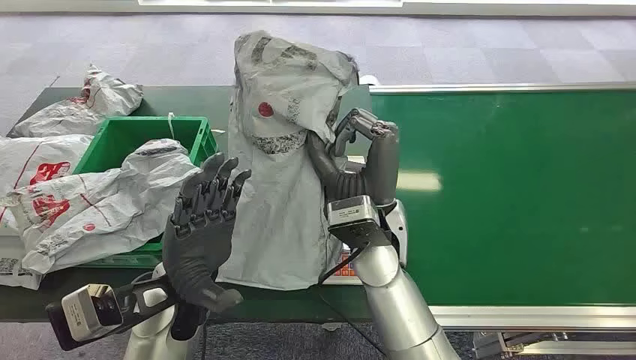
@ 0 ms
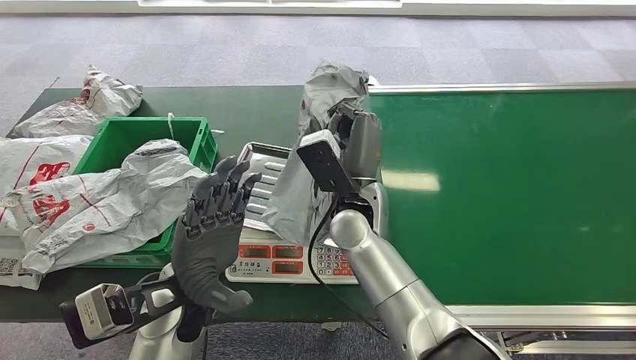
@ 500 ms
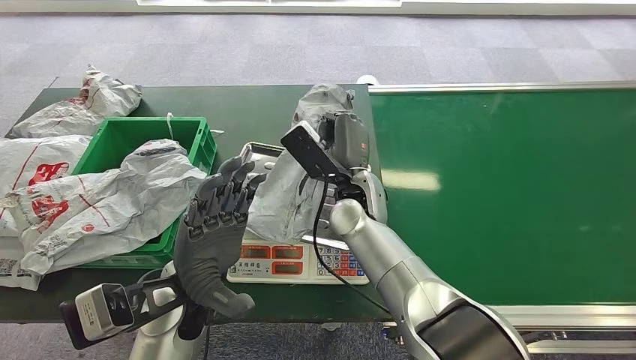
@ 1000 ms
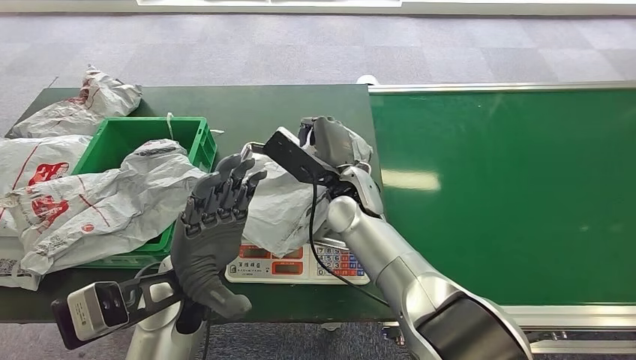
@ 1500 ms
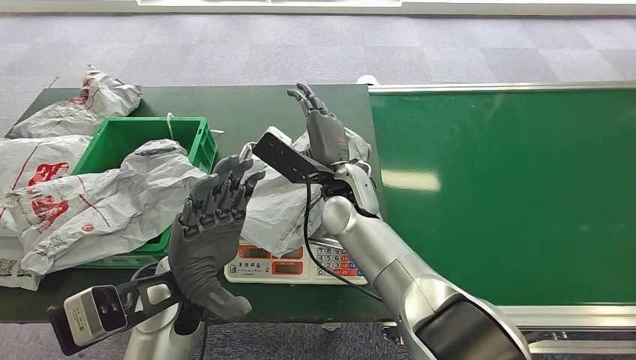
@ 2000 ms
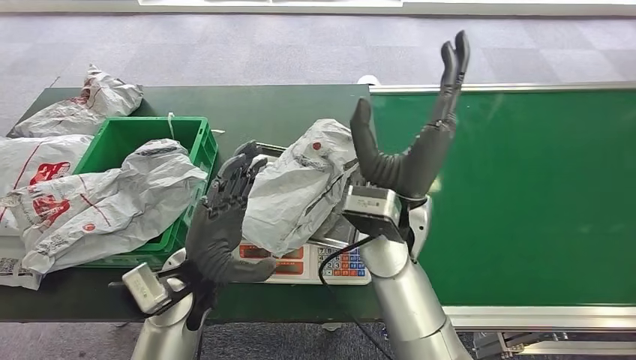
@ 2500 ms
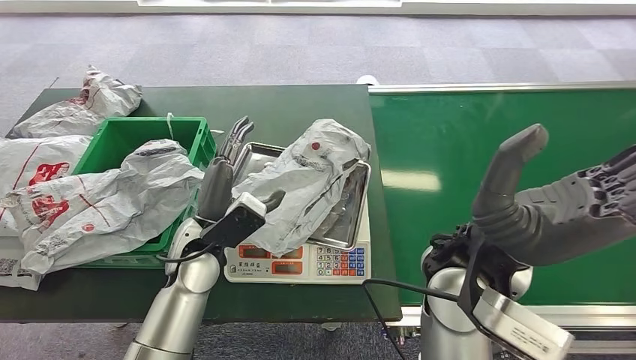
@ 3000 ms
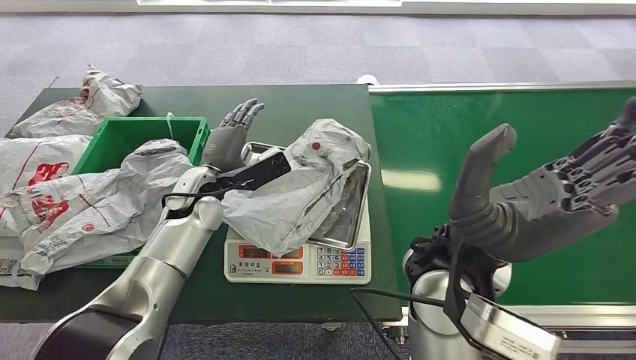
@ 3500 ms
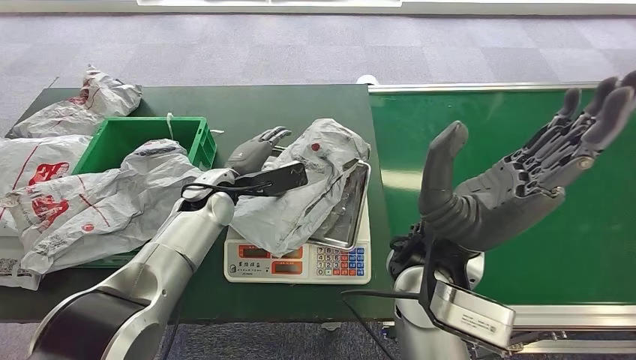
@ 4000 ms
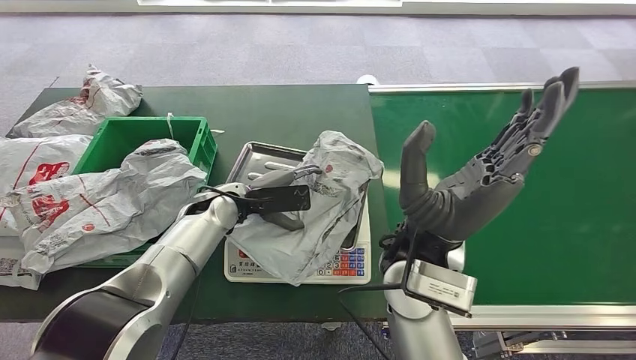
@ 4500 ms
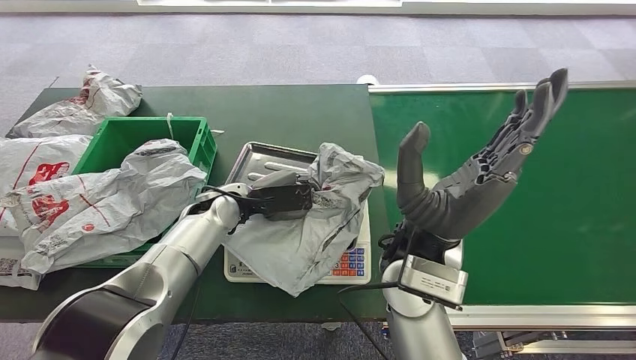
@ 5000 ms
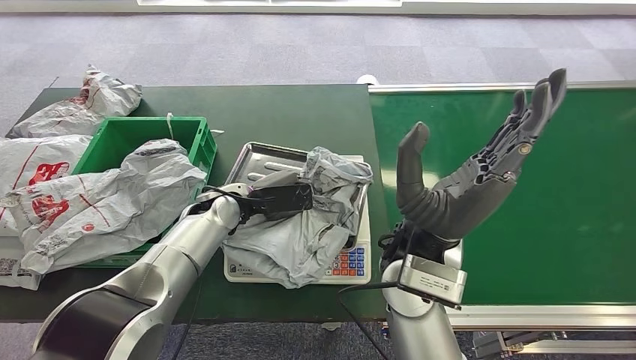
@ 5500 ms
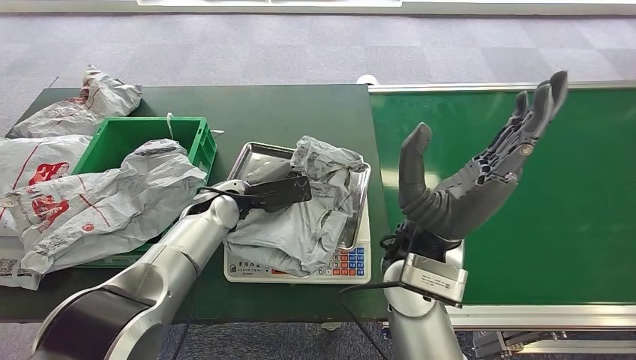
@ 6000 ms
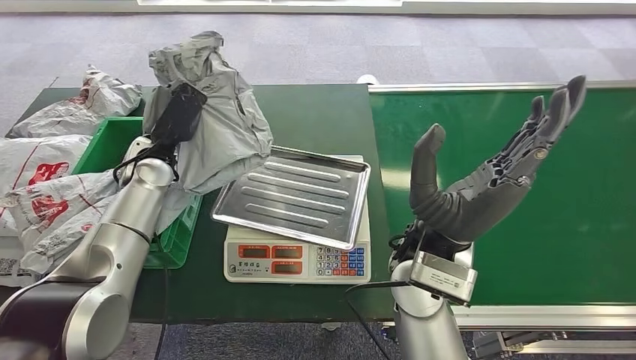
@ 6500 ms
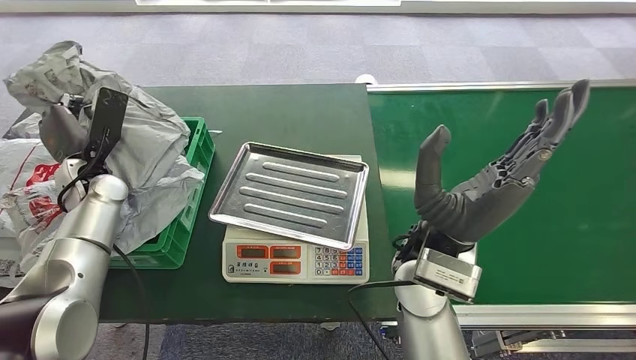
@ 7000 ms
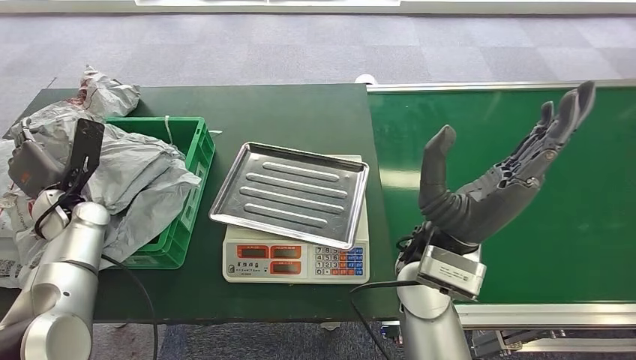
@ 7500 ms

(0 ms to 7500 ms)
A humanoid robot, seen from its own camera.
Step, 500 ms - 1500 ms: Place the package onto the inbound machine.
Step, 2000 ms - 6000 ms: Pick up the package from the inbound machine.
Step, 7000 ms - 7500 ms: Place the package into the parcel locker.

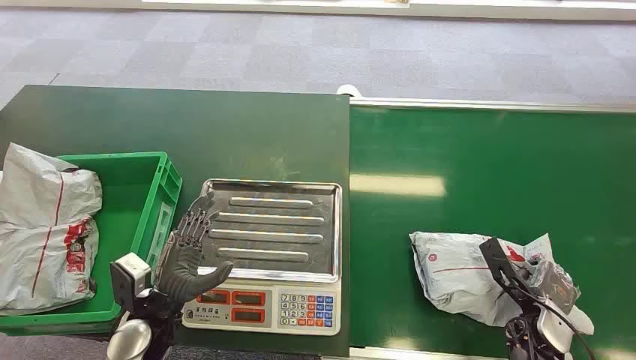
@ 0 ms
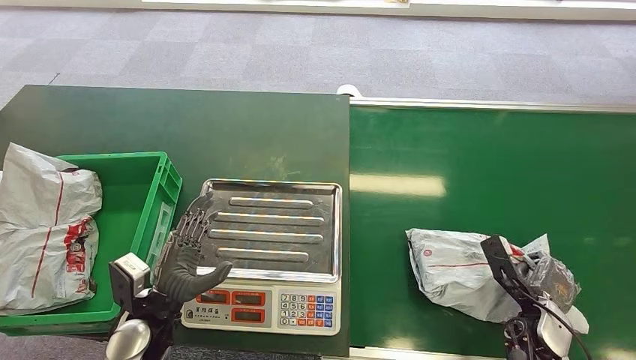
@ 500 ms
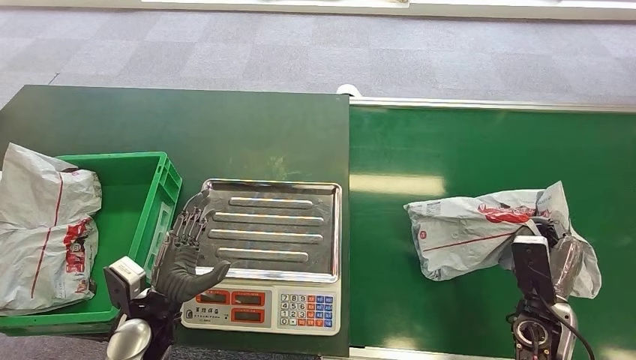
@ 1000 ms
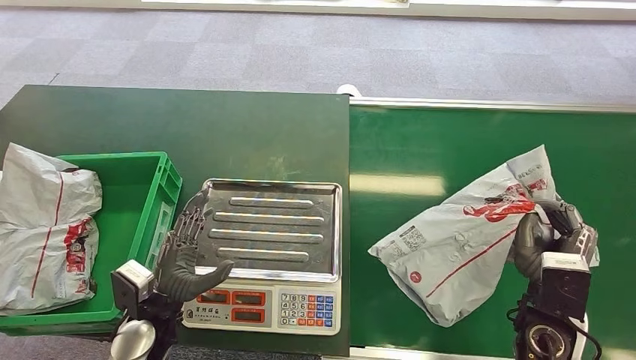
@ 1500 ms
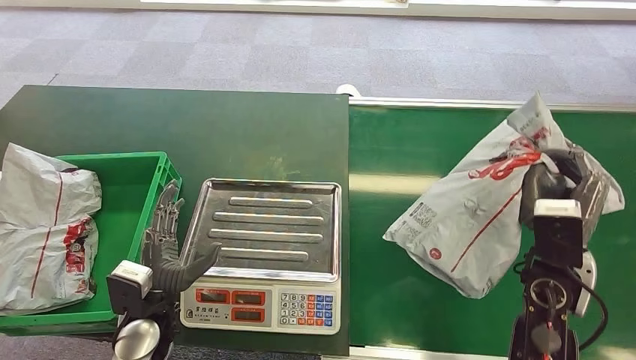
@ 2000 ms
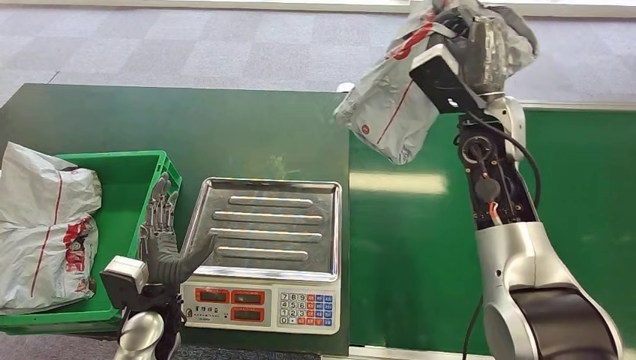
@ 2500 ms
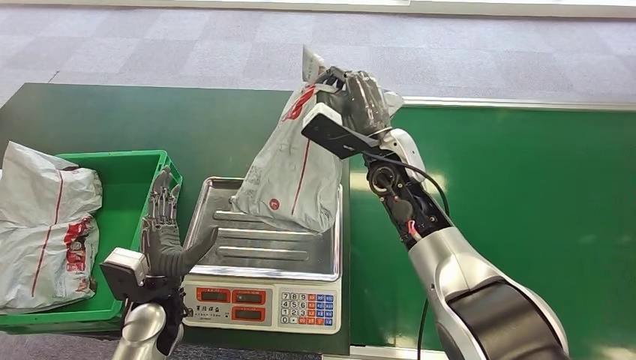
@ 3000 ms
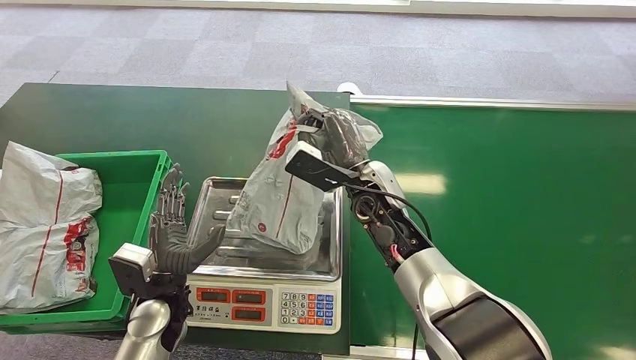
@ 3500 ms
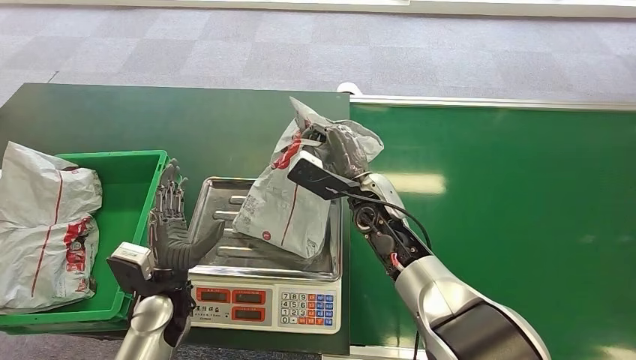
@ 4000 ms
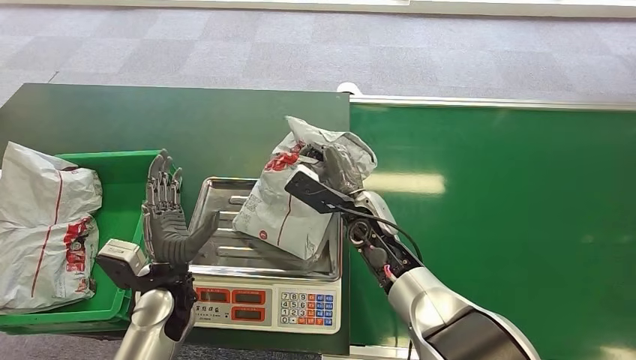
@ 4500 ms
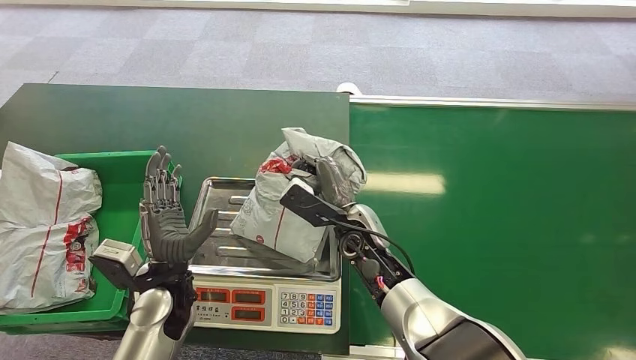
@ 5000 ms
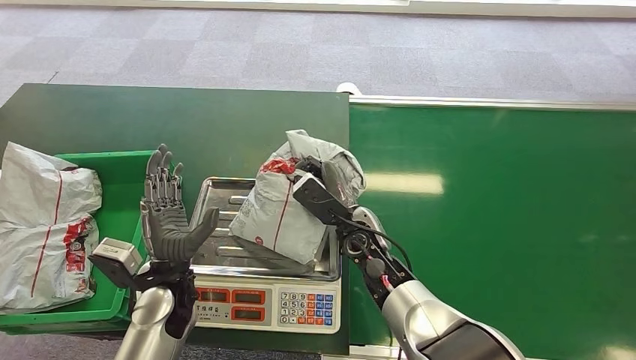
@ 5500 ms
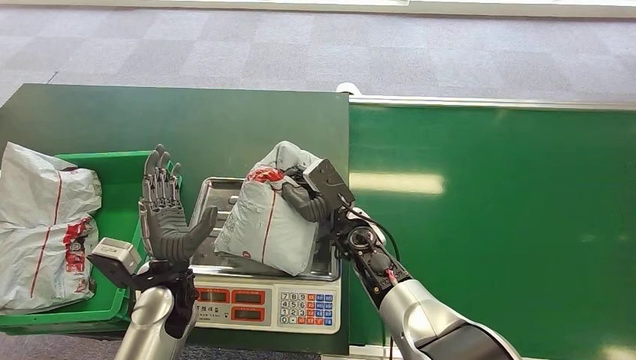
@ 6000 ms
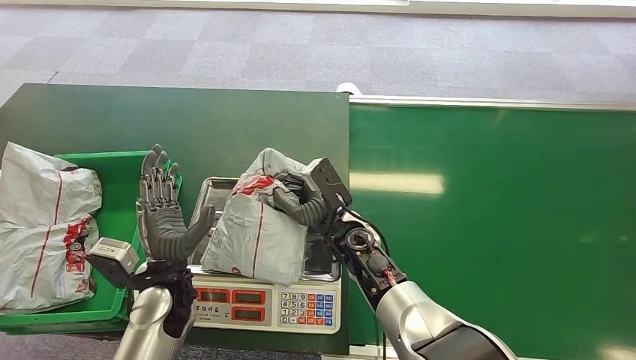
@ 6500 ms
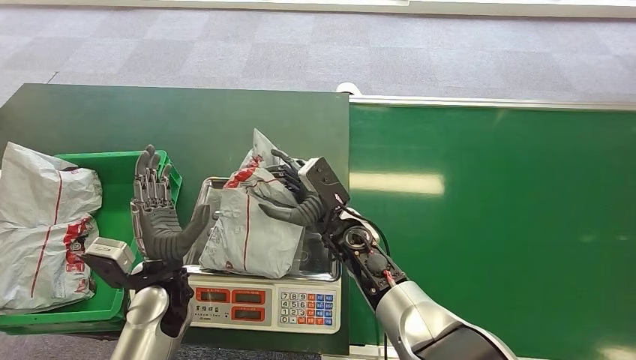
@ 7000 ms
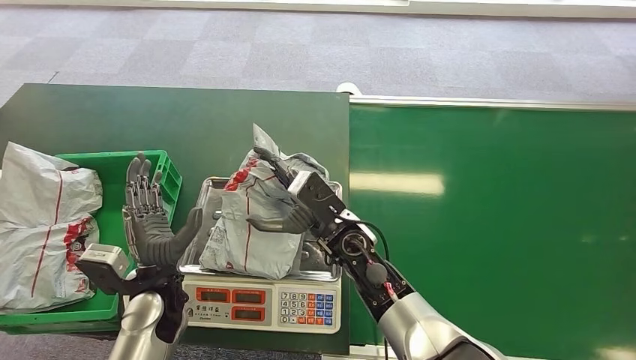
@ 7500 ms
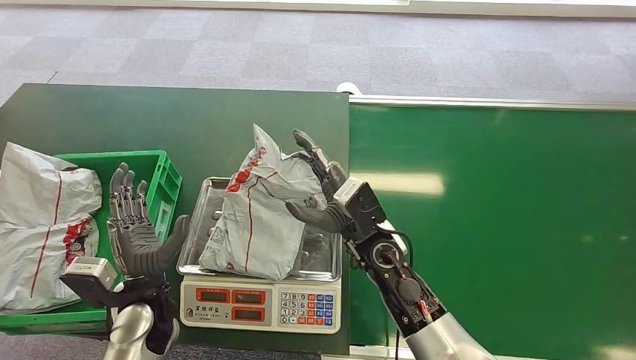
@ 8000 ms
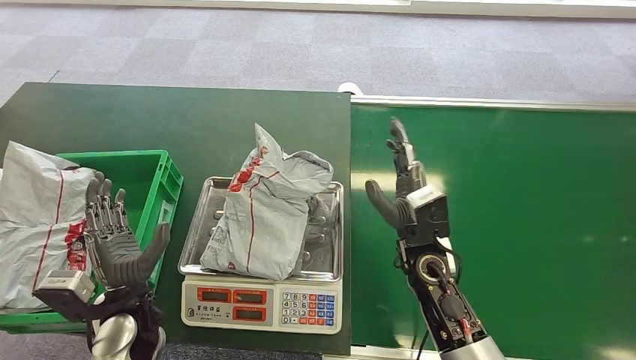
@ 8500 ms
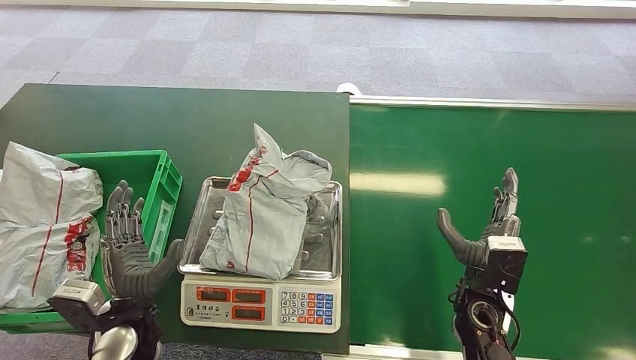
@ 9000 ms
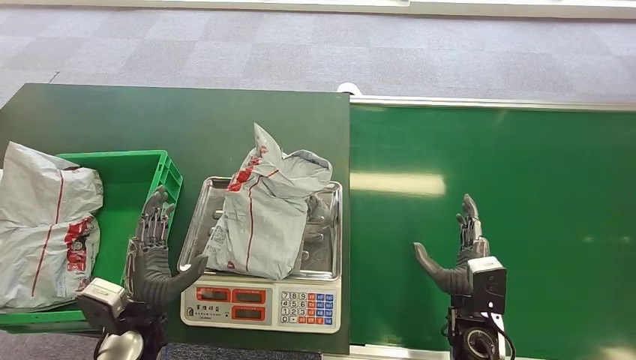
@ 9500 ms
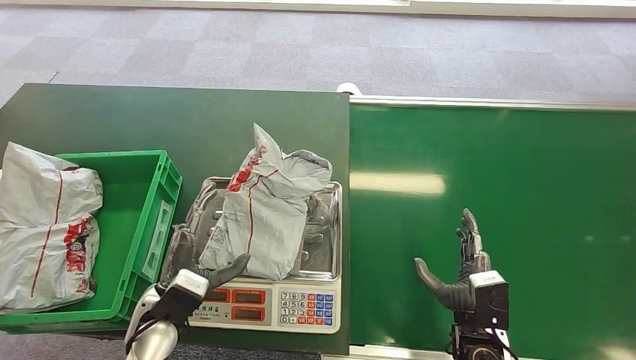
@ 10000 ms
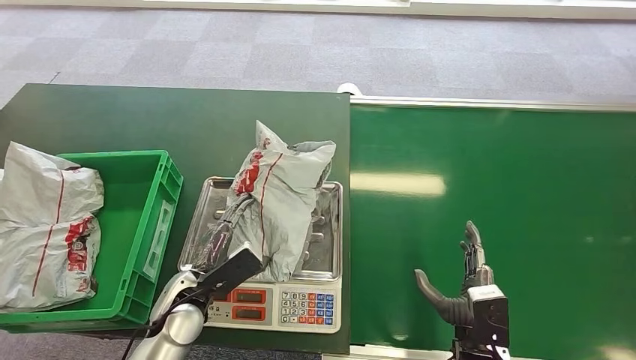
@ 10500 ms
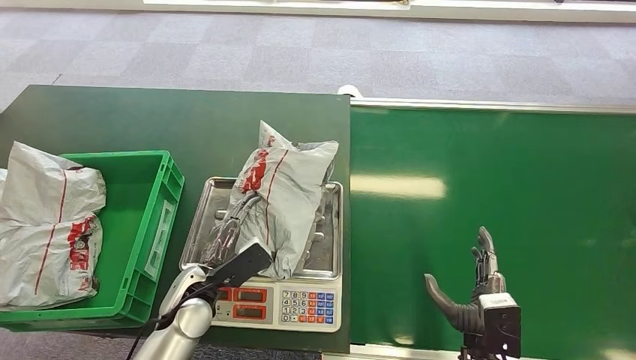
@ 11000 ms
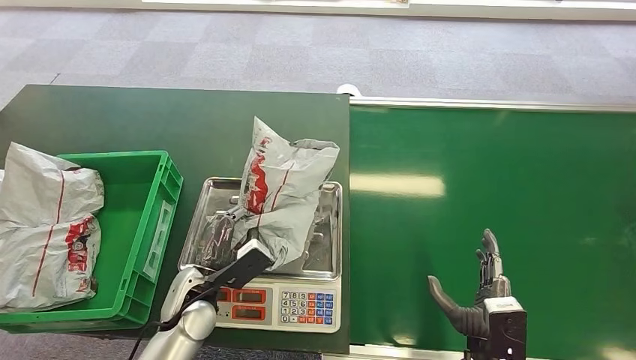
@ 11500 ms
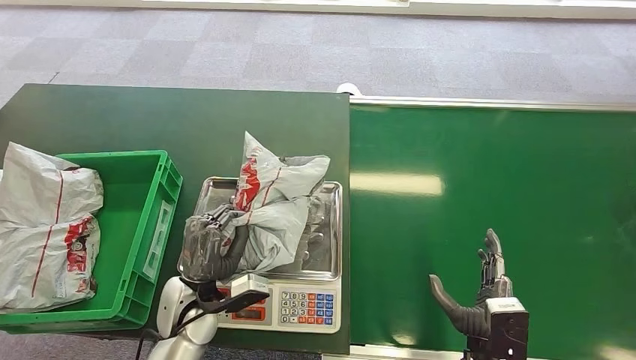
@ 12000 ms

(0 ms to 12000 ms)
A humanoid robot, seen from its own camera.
Step, 0 ms - 1500 ms: Pick up the package from the conveyor belt.
Step, 3000 ms - 7500 ms: Place the package onto the inbound machine.
4000 ms - 6000 ms: The right hand travels downward by about 5 cm.
8000 ms - 10000 ms: The right hand travels to the right, backward and downward by about 20 cm.

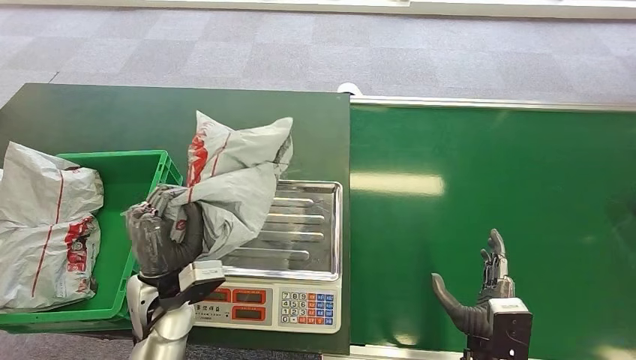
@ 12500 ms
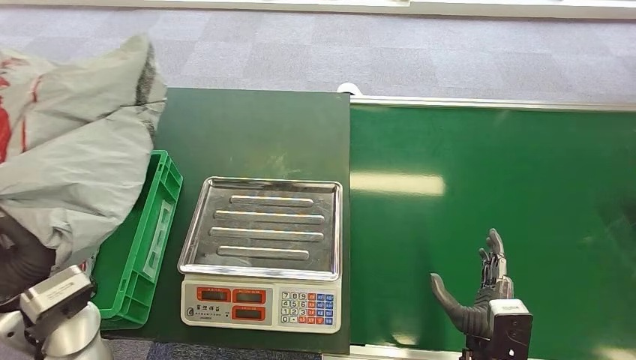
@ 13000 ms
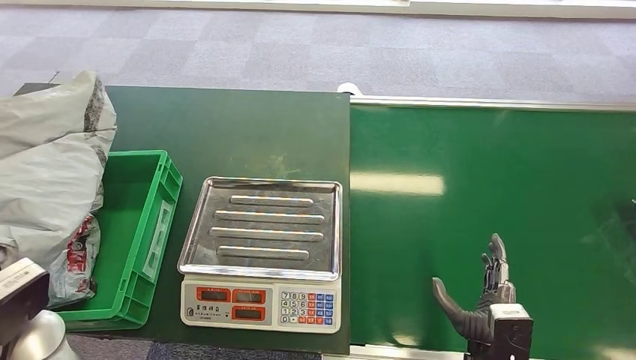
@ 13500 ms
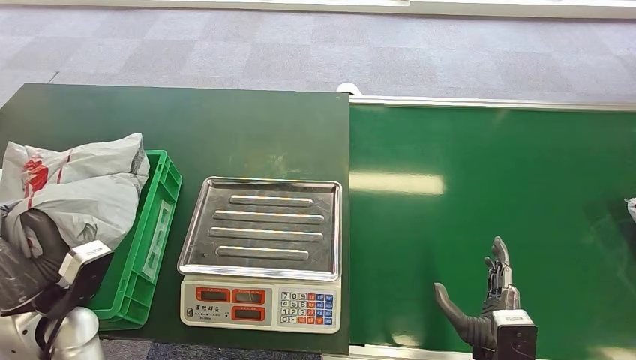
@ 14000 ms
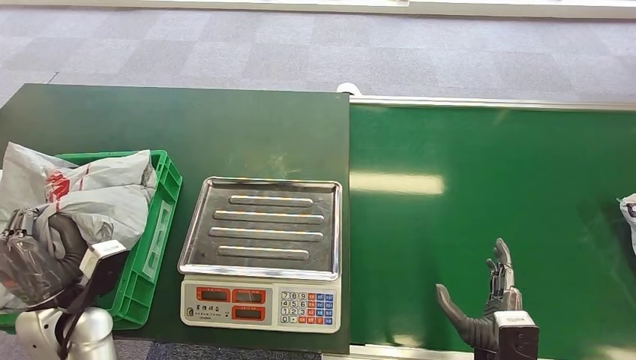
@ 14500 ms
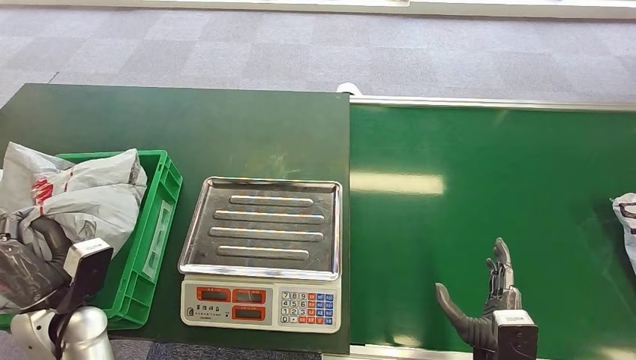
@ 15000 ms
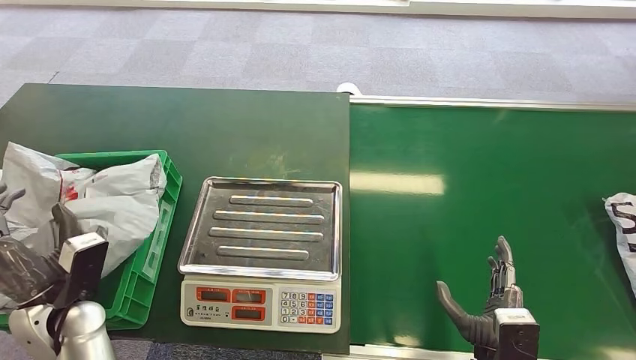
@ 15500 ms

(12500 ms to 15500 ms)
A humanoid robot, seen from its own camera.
Step, 12500 ms - 13000 ms: Pick up the package from the inbound machine.
Step, 13500 ms - 15500 ms: Place the package into the parcel locker.
14000 ms - 15500 ms: The hands make only small movements.
